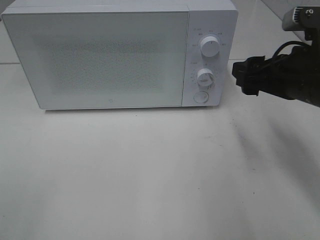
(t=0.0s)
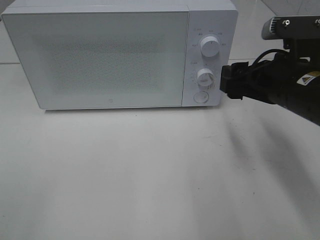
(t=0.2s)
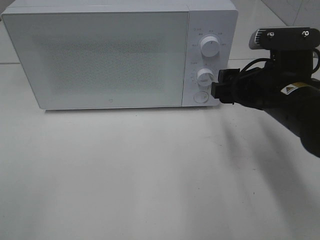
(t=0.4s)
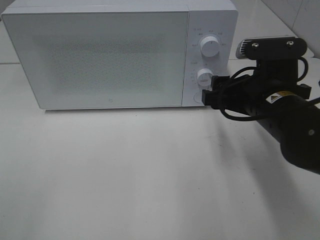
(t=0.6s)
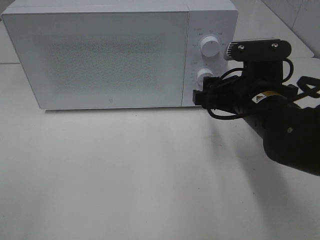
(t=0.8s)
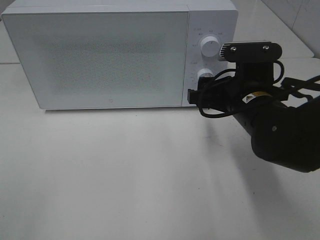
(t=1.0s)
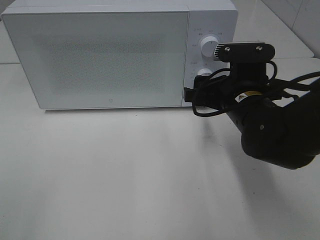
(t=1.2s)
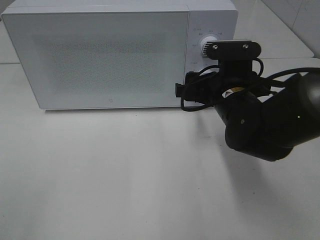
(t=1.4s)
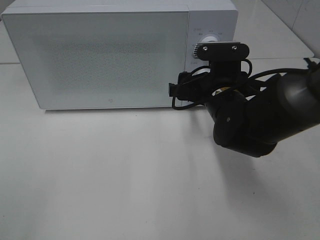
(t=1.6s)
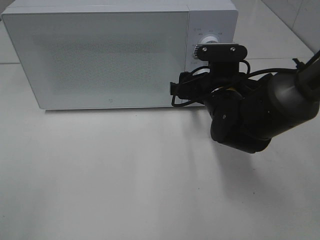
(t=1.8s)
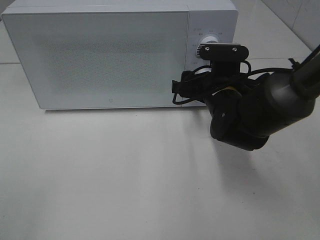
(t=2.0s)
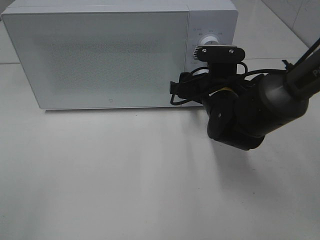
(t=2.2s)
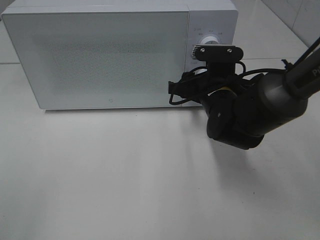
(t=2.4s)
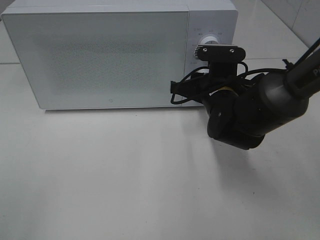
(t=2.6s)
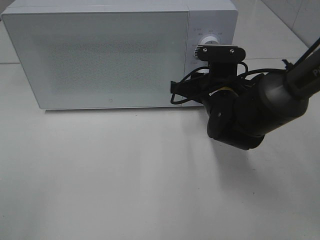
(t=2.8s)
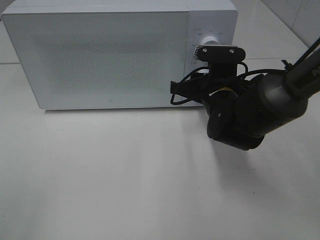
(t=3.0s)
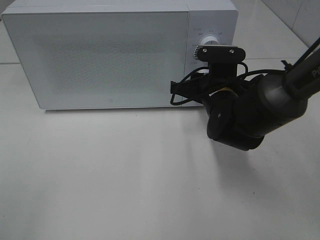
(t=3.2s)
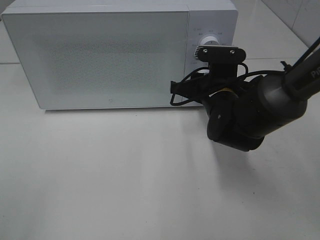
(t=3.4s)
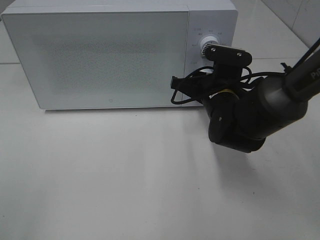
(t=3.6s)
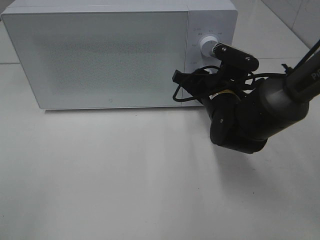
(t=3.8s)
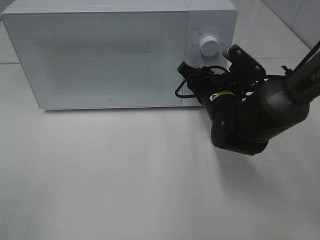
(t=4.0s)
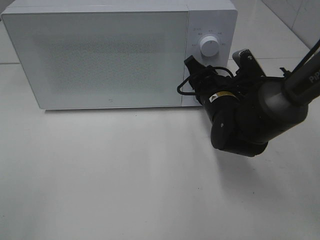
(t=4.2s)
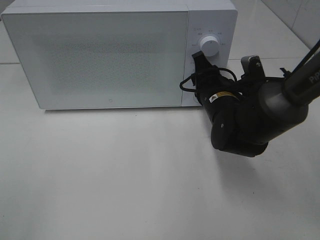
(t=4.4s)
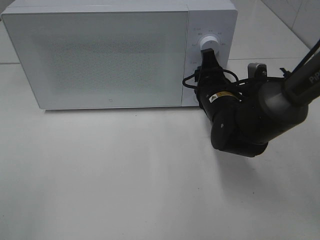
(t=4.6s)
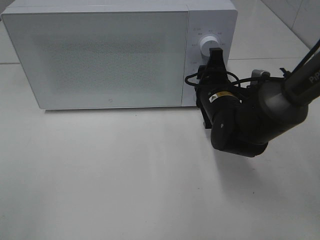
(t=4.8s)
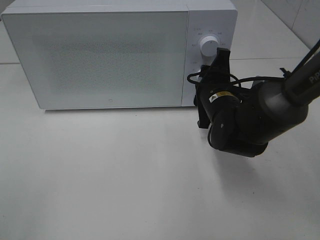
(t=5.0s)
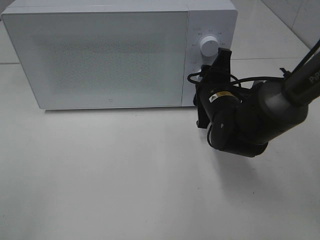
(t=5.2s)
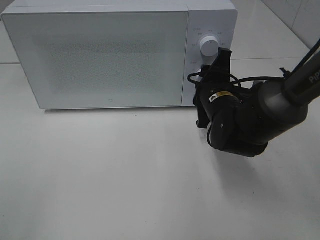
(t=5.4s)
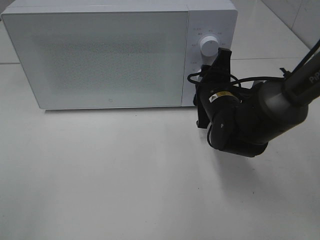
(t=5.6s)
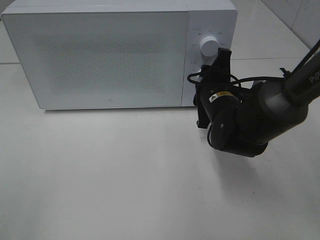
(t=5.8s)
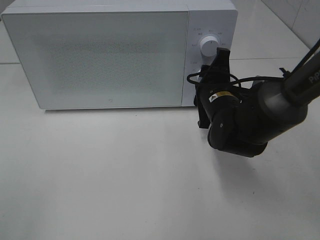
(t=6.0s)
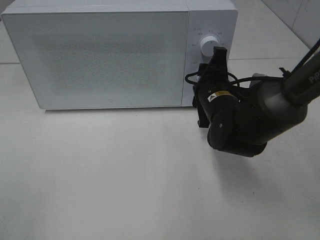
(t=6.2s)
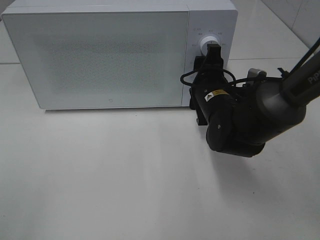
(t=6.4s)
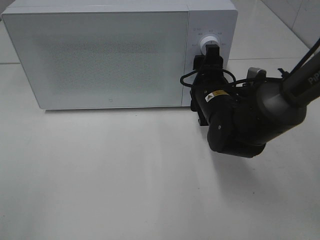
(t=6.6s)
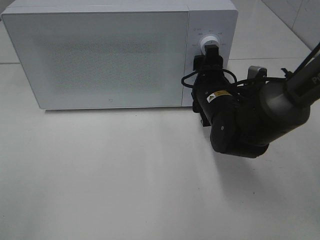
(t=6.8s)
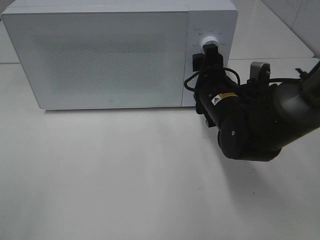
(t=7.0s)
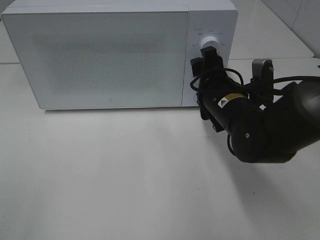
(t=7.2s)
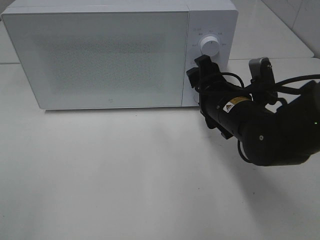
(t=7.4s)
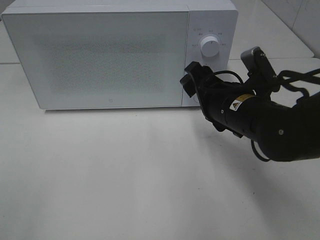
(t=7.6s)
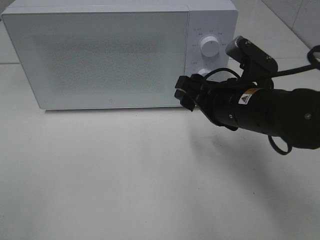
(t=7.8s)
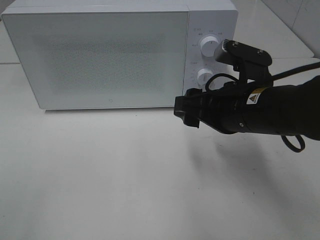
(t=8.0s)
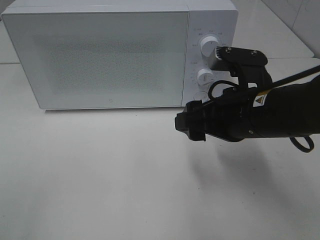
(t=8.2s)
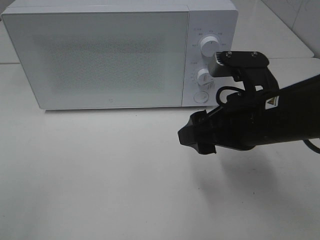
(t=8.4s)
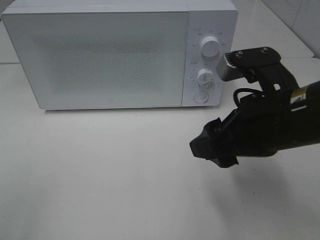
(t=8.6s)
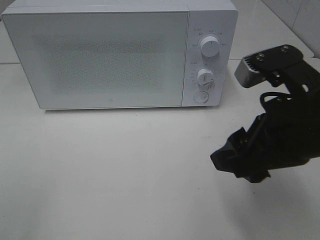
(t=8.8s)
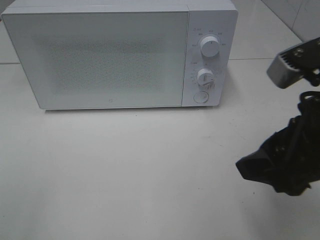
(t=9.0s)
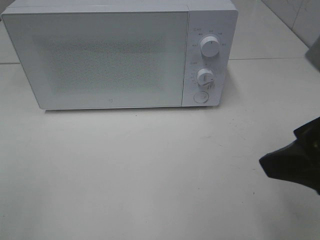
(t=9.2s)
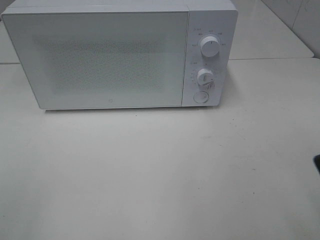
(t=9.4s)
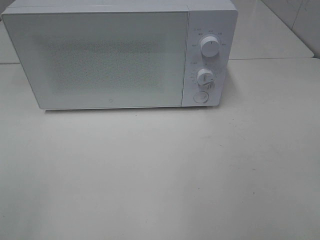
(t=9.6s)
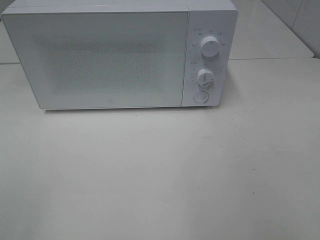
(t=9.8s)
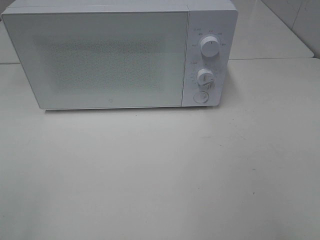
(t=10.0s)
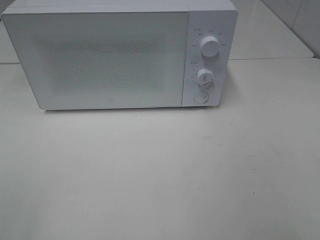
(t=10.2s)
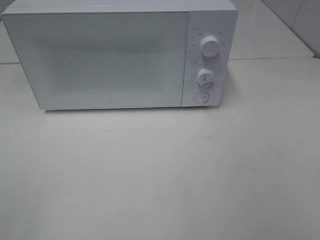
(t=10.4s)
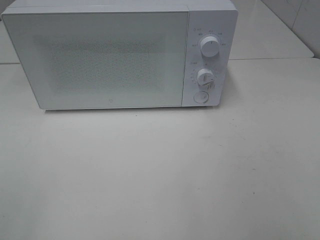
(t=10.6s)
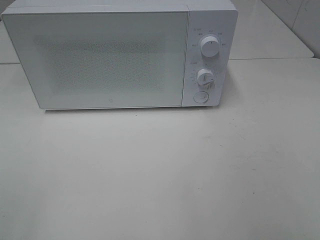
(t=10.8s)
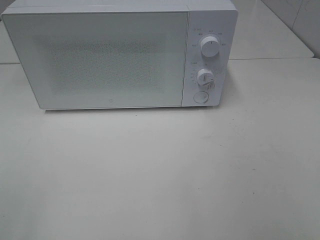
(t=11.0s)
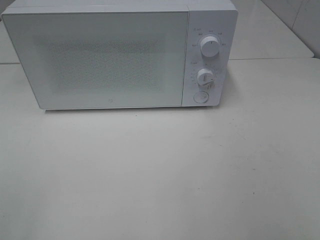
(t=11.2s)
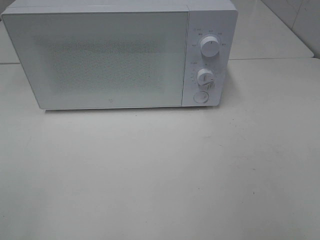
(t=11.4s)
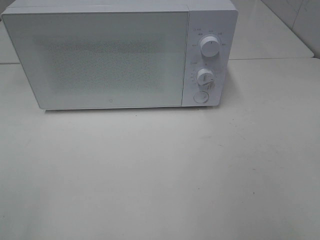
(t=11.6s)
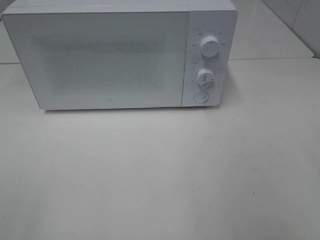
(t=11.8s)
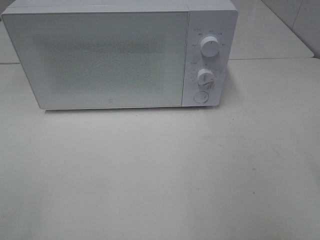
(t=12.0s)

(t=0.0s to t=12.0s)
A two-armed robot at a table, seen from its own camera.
Task of the whole recording: Heat Sandwich.
Step, t=0.0s - t=7.2s: Right hand: twist timer button.
t=0.0s - t=1.6s: The right gripper shifts roughly 15 cm to the left, downward and forward.
t=1.6s - t=3.0s: The right gripper closes its fingers.
t=6.0s - t=7.6s: The right gripper goes roughly 5 cm backward.
t=7.6s - t=9.0s: The right gripper heads backward, upward and to the right, covering some 20 cm.
t=9.0s - t=10.4s: The right gripper shifts about 20 cm backward and to the right.

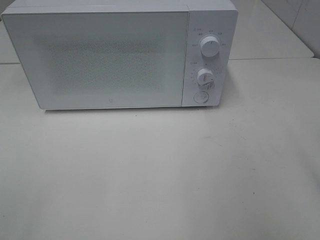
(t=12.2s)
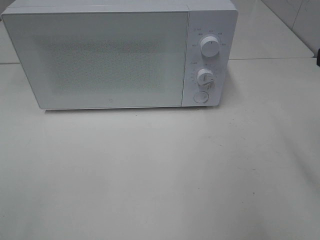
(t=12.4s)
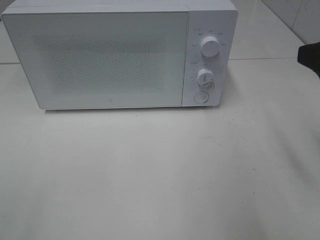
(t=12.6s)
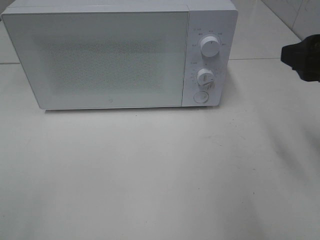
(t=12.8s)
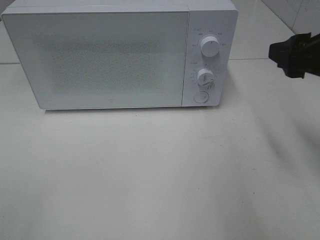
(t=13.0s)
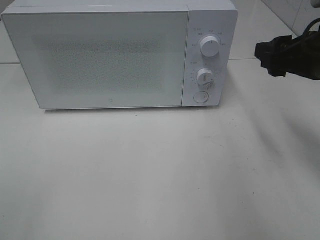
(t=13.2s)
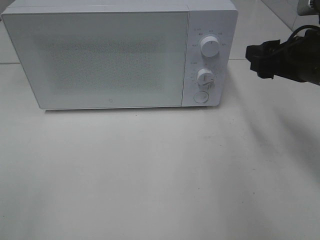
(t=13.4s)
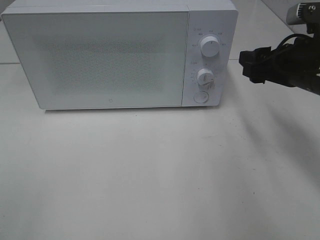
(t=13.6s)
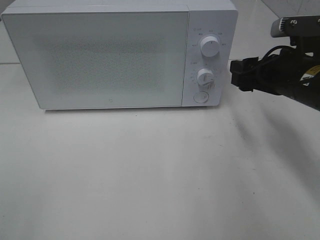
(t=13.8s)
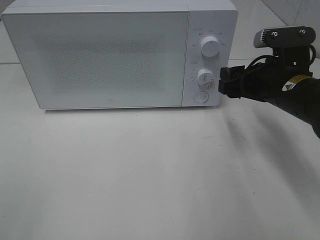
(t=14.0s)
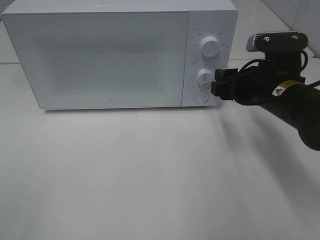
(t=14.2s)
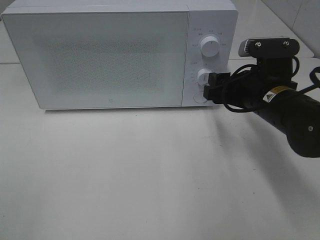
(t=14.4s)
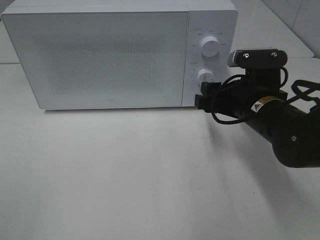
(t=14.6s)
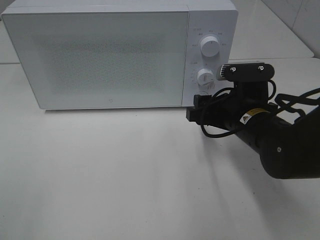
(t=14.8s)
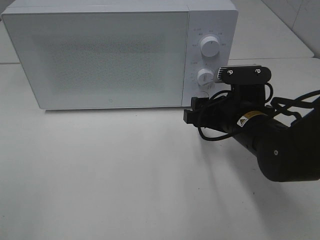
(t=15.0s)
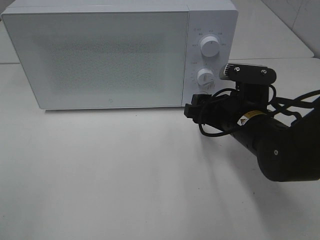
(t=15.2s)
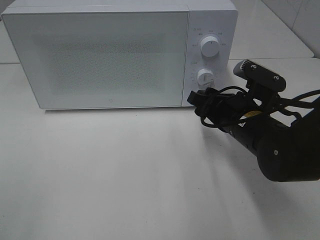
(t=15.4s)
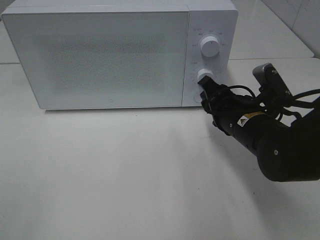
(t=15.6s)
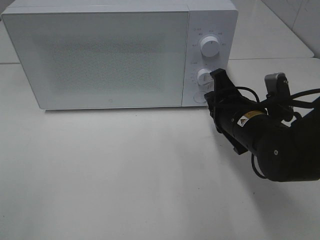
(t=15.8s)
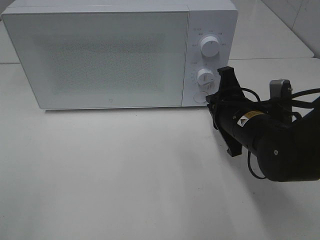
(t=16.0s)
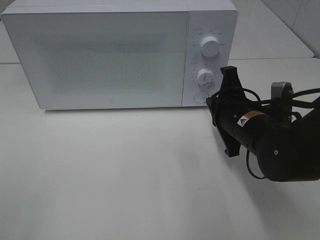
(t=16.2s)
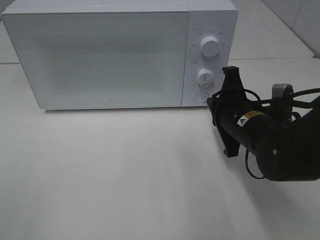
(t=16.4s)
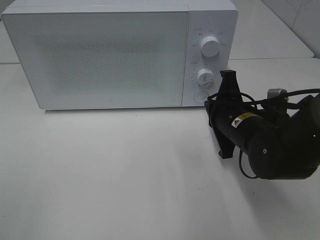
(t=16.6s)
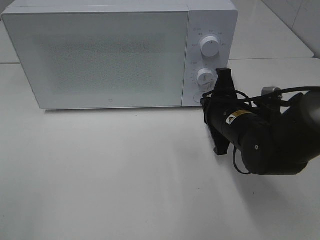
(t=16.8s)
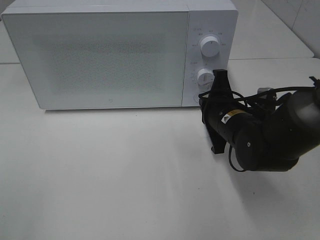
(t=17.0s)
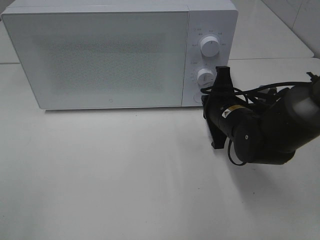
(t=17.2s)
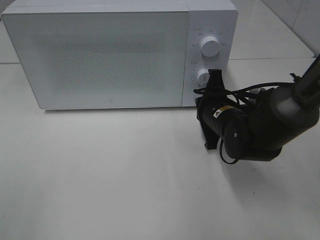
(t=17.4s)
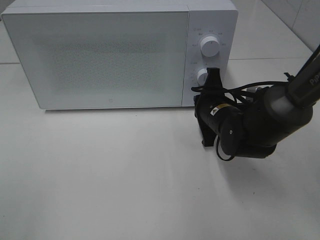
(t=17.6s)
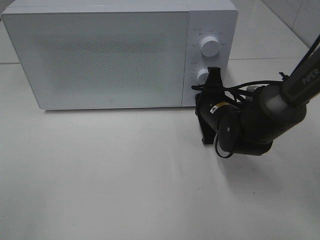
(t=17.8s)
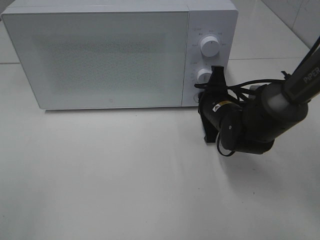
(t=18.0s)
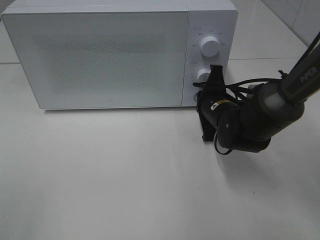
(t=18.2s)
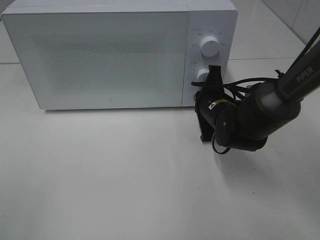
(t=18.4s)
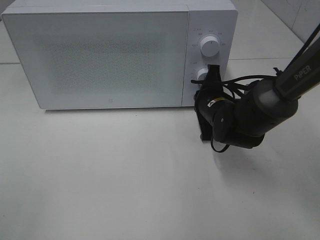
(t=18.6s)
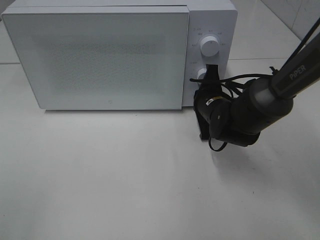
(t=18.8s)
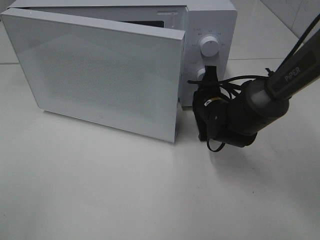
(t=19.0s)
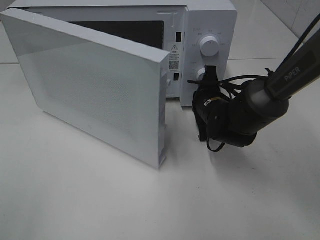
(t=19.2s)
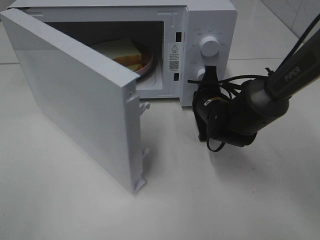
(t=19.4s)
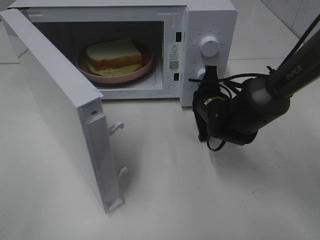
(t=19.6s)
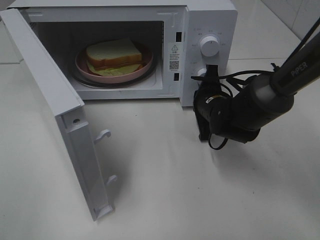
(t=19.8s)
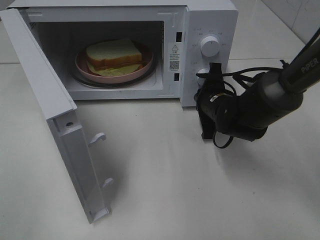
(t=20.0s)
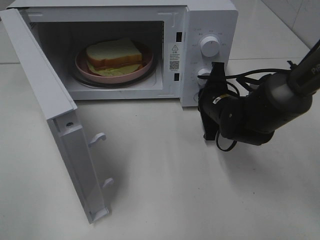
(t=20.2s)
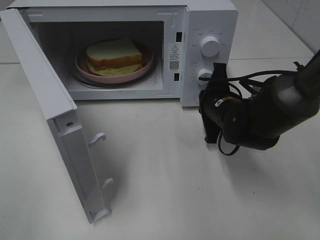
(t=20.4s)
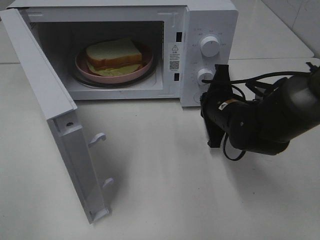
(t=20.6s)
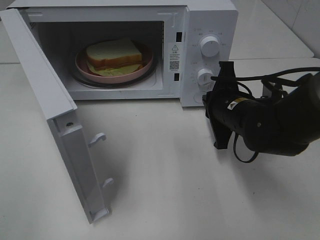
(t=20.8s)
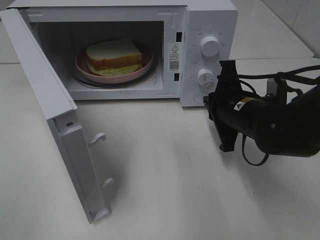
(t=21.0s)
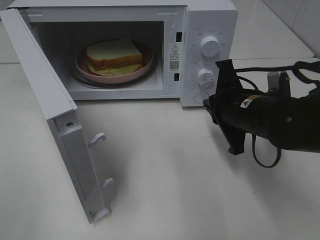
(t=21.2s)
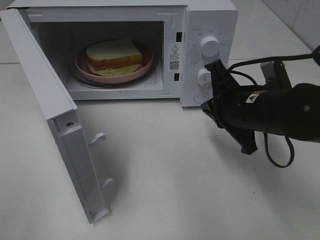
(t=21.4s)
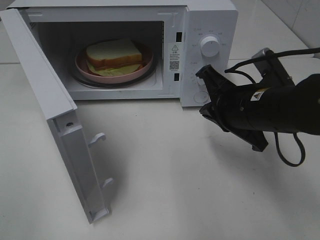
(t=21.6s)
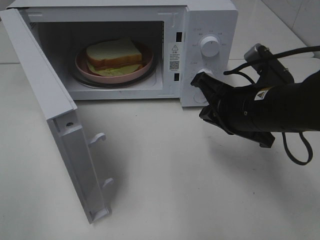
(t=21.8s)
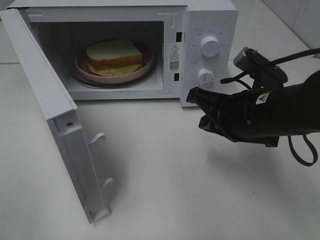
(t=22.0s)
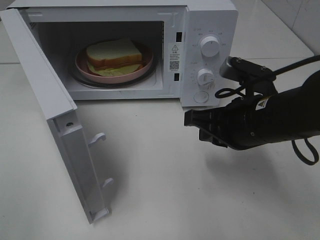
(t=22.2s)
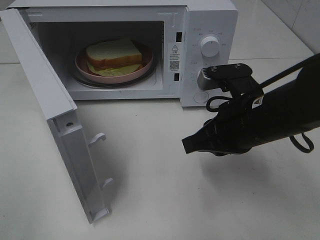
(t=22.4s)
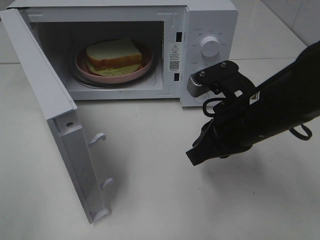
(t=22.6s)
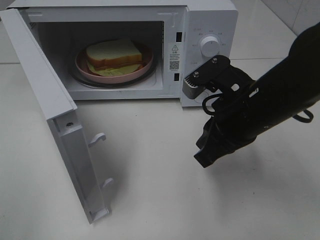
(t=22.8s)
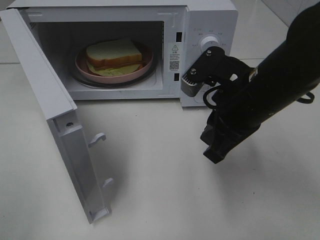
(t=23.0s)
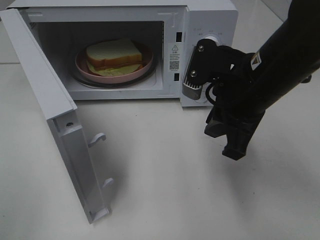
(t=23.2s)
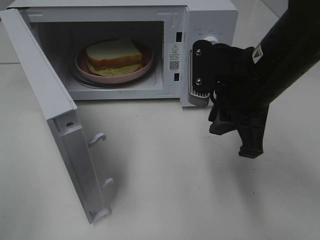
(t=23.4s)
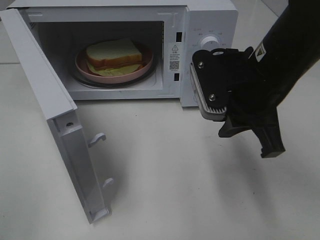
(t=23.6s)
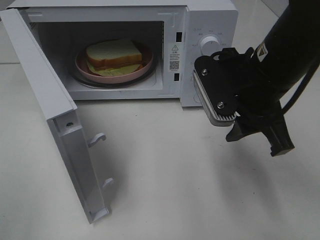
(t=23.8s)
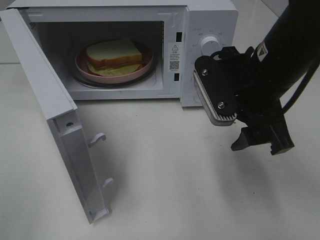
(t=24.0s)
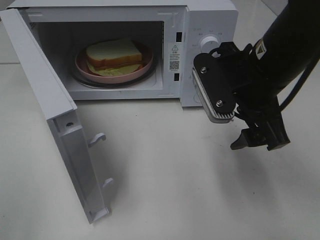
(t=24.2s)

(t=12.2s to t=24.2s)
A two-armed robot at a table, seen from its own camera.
Task of the whole recording: Heat Sandwich.
Step, t=12.2s - t=20.2s: Right hand: press the switch.
t=12.2s - t=13.8s: The right gripper is displaced forward and downward by approximately 20 cm.
t=13.8s - t=15.2s: The right gripper moves to the left and downward, some 10 cm.
t=15.2s - t=16.6s: The right gripper closes.
t=16.6s - t=18.2s: The right gripper shifts some 5 cm forward.
t=19.8s - t=21.2s: The right gripper heads backward and upward, covering about 10 cm.
t=21.2s - t=22.6s: The right gripper shifts by approximately 5 cm.
t=22.6s - t=24.2s: The right gripper heads upward, covering roughly 5 cm, and opens.
